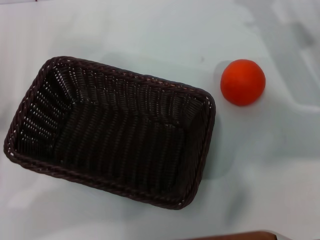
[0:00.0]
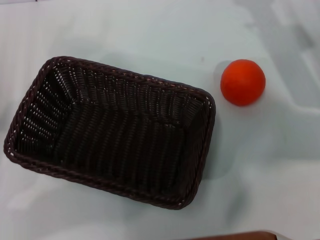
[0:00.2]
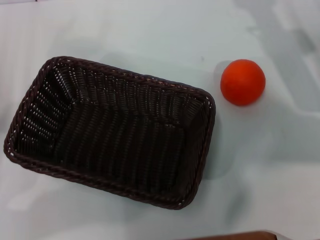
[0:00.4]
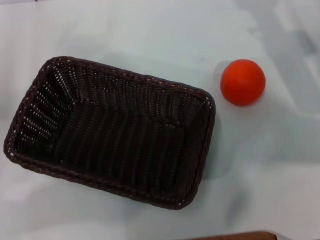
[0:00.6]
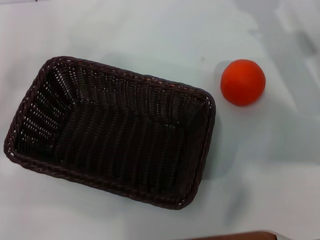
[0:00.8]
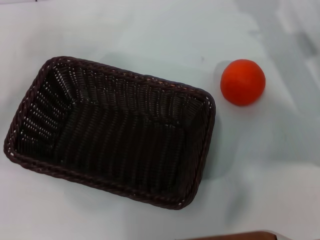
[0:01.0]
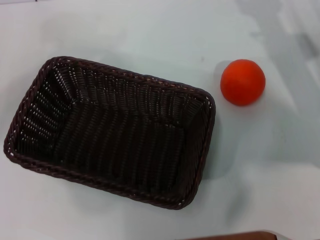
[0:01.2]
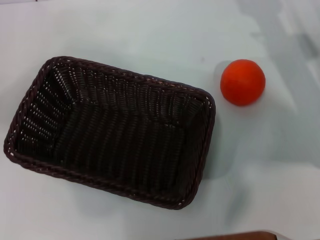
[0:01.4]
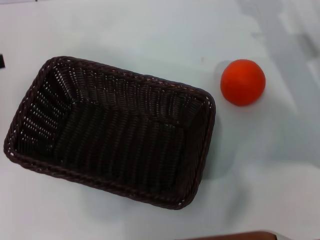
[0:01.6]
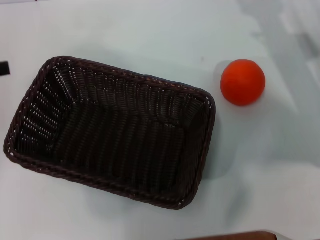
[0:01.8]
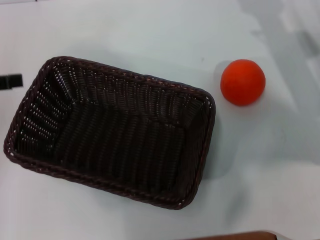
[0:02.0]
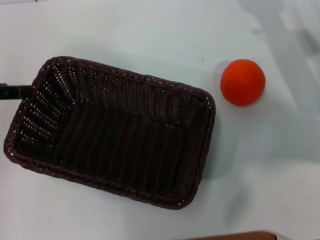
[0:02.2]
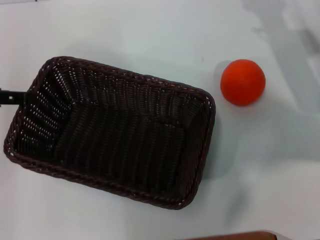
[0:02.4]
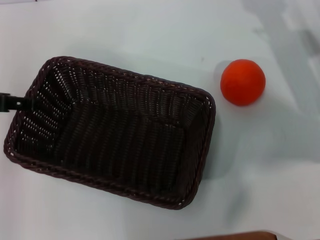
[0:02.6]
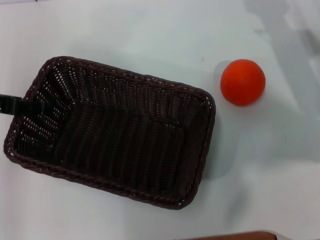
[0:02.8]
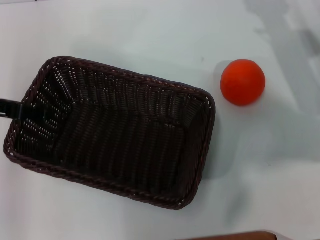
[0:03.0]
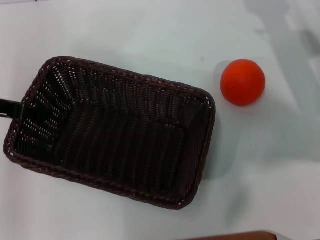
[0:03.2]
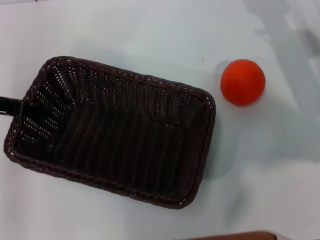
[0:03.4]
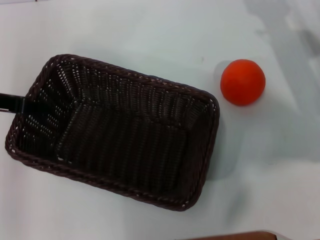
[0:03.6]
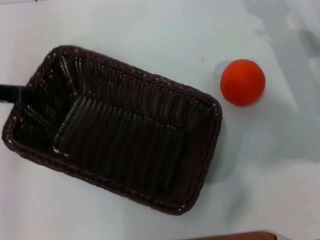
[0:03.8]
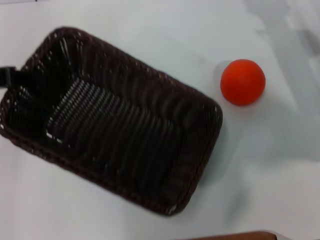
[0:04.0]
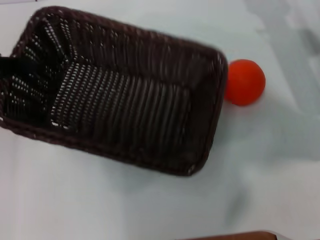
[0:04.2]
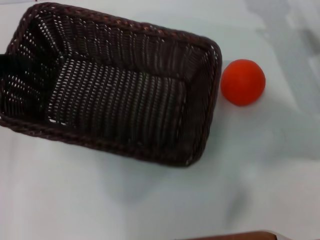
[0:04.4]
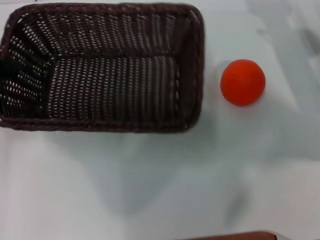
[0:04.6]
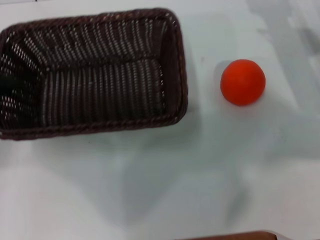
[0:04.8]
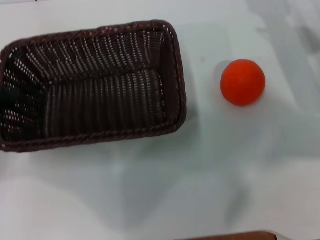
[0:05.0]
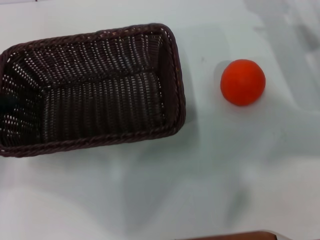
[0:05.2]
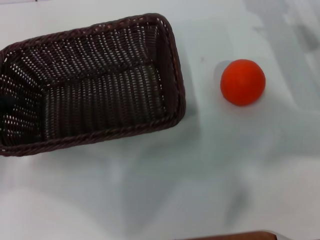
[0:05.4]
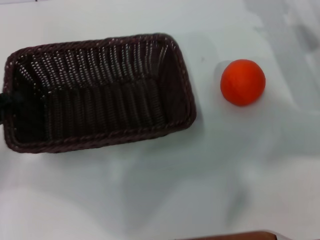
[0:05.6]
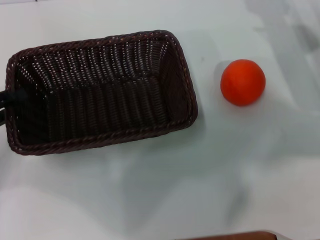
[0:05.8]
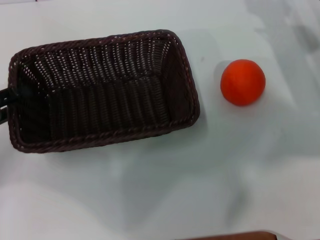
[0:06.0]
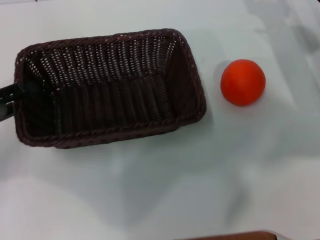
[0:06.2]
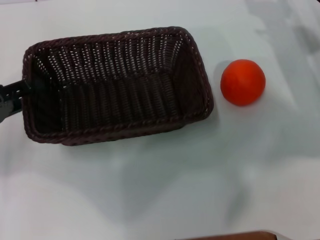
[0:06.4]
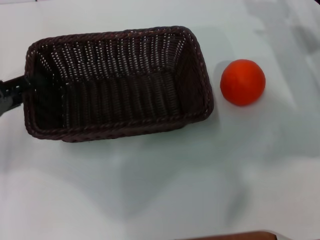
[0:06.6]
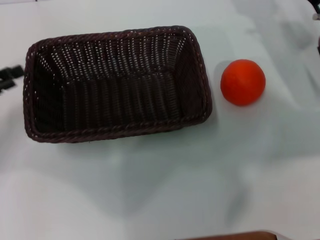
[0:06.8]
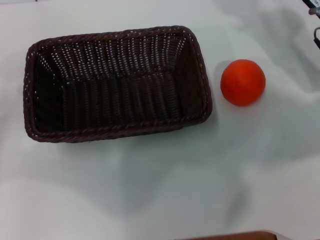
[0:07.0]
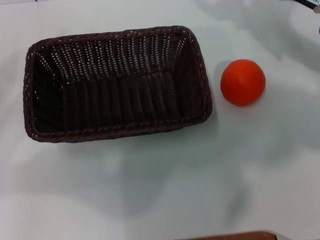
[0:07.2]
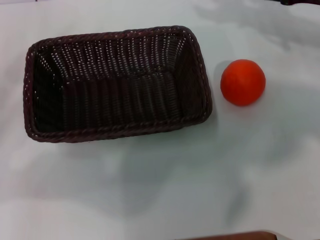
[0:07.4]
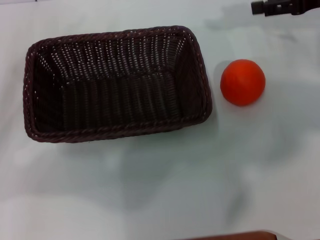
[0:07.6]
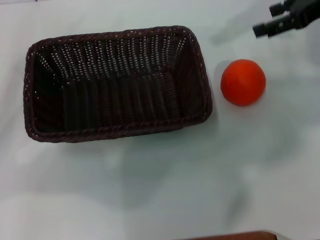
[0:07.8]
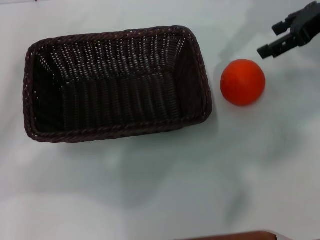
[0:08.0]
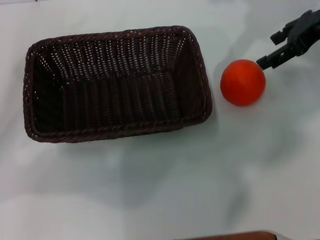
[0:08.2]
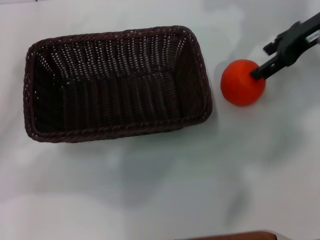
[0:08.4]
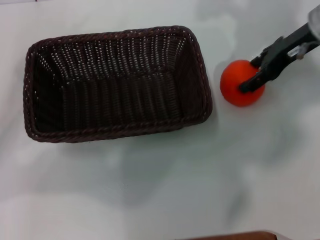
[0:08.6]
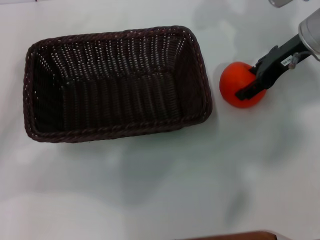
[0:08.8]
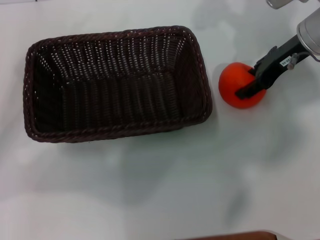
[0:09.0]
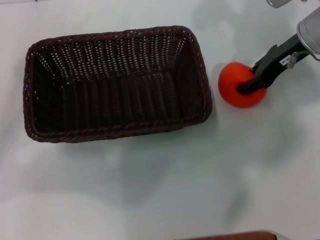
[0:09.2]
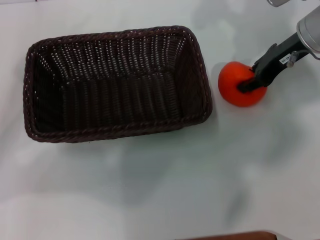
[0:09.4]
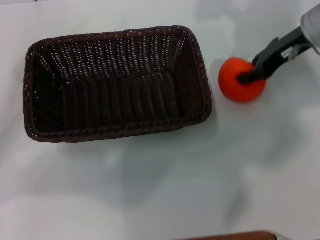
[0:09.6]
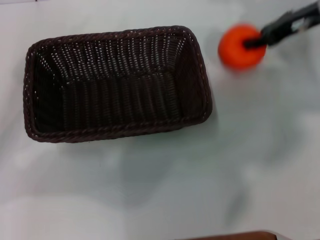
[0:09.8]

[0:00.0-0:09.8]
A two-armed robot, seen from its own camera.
Task of the whole recording: the left gripper pick up the black basket and place it horizontally in the middle of the table, the right gripper pick up the orange and place it into the black basket.
Step, 0:00.0 to 0:03.8: Pick up the dark basket with the left gripper.
Step, 0:04.2 to 0:06.6: Place the dark basket in the center of view with the left gripper.
Step, 0:06.8 to 0:09.8: Pick up the orange with the right gripper.
0:00.0 to 0:01.4: The left gripper travels upward by about 10 cm.
0:01.4 to 0:02.8: The left gripper goes approximately 5 cm to the right.
0:02.8 to 0:04.2: The left gripper closes up.
0:04.2 to 0:05.6: The left gripper shifts some 10 cm downward and backward.
0:05.6 to 0:07.0: The left gripper opens.
0:07.0 to 0:08.4: The right gripper travels upward by about 10 cm.
0:08.4 to 0:09.8: The right gripper closes up.

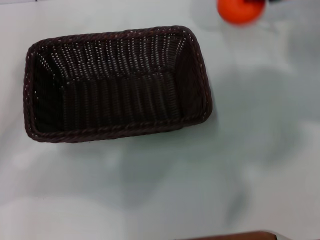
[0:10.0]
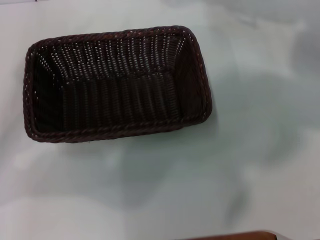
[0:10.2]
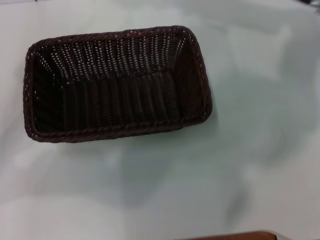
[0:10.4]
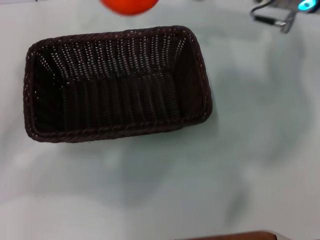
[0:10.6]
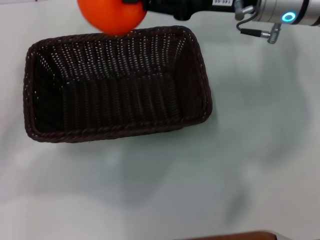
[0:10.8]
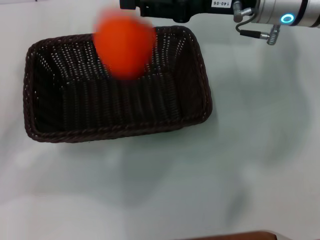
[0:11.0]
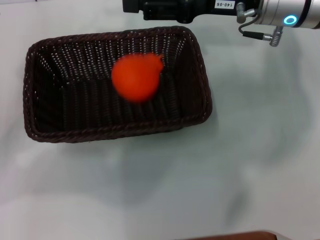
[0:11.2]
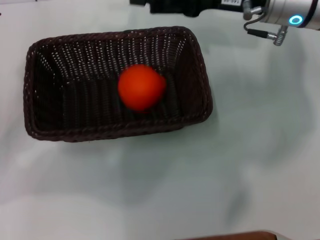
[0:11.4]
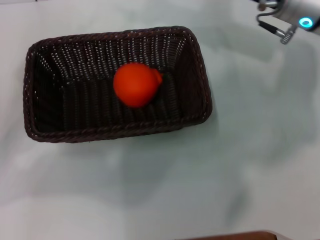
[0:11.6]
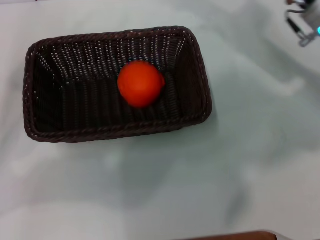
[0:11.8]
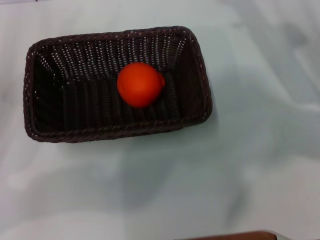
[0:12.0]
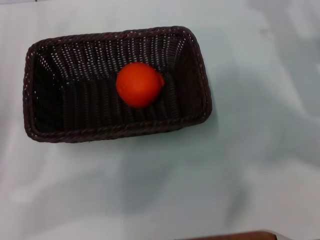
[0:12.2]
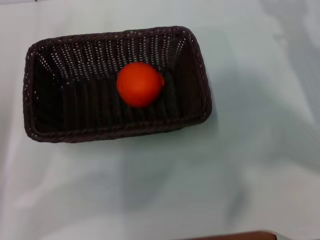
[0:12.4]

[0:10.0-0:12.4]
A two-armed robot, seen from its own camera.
Task of the whole recording: the left gripper pick up the black basket and place it horizontally in the middle of the table, the right gripper pick up the orange and place it into the black basket.
Step, 0:10.0 to 0:11.2: Place the orange into the dark basket with the right gripper.
0:10.0 to 0:11.2: The right gripper is displaced to the left by approximately 10 cm, and opens its fingers.
0:11.2 to 0:12.4: The right gripper shifts roughly 20 cm to the right, downward and backward, and opens; the left gripper ends up about 5 cm from where it was.
